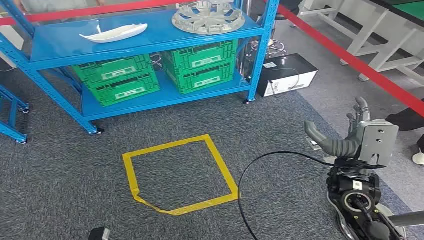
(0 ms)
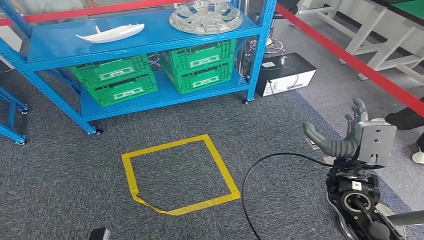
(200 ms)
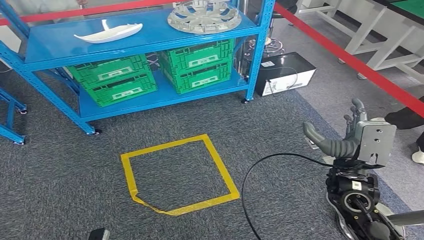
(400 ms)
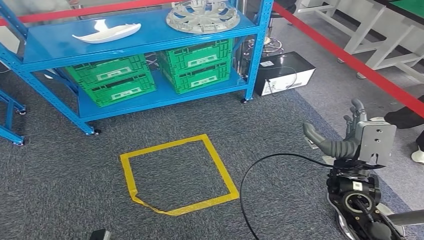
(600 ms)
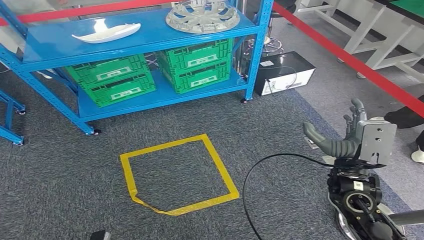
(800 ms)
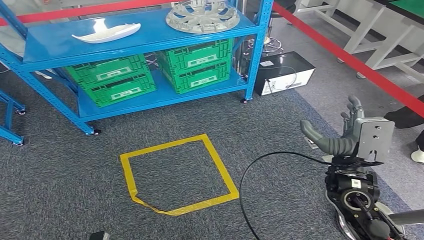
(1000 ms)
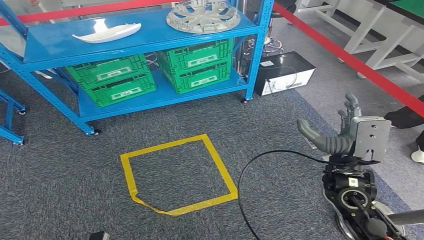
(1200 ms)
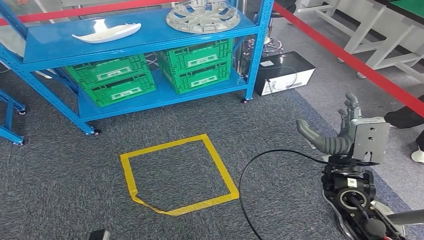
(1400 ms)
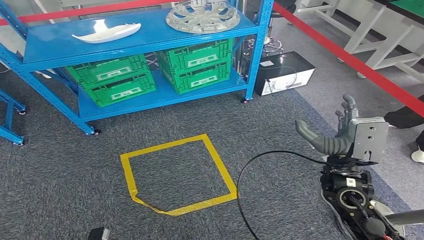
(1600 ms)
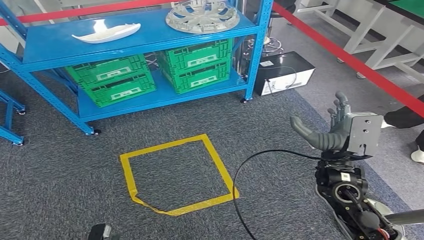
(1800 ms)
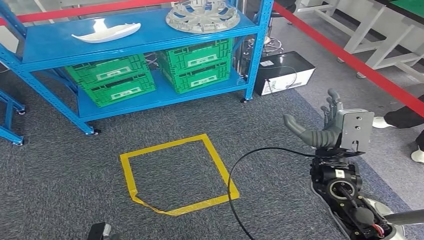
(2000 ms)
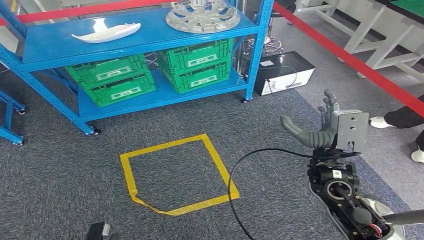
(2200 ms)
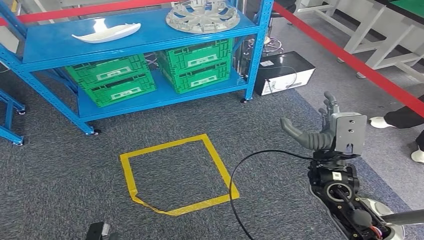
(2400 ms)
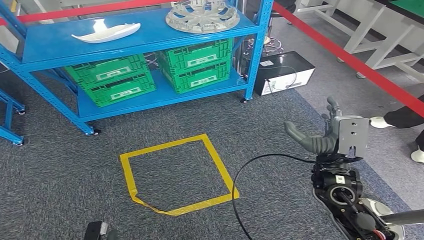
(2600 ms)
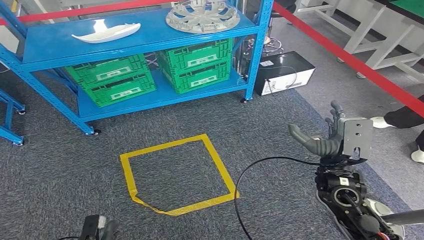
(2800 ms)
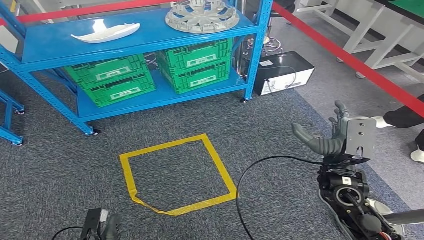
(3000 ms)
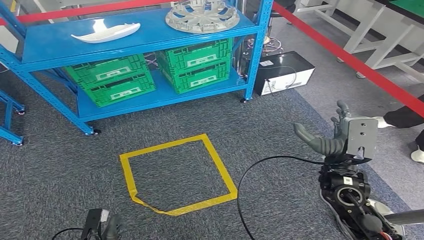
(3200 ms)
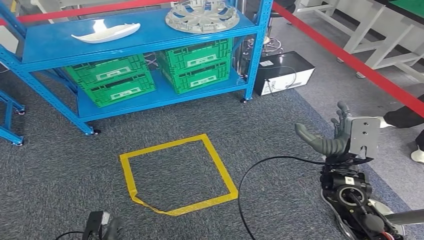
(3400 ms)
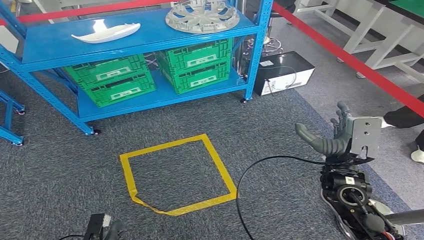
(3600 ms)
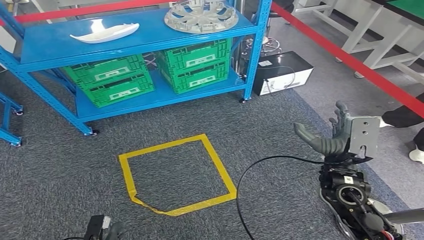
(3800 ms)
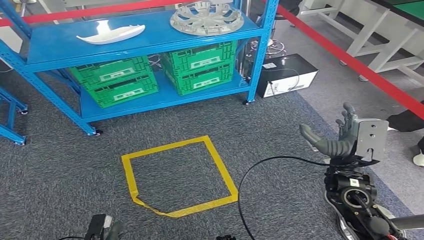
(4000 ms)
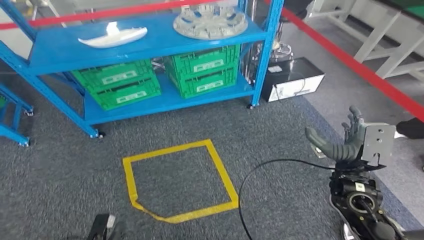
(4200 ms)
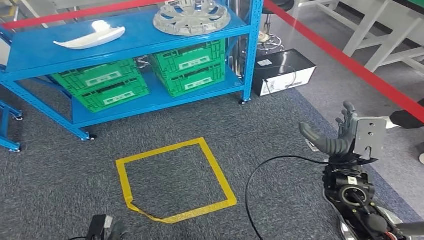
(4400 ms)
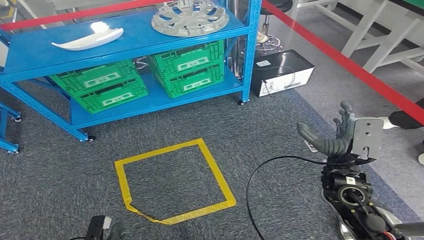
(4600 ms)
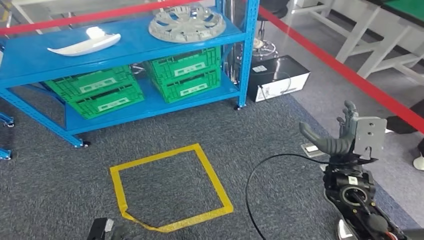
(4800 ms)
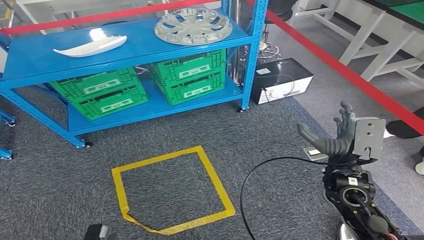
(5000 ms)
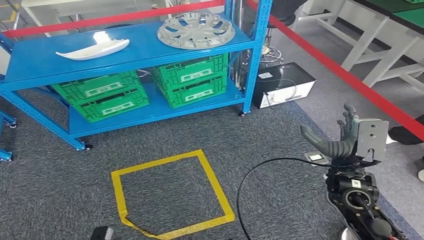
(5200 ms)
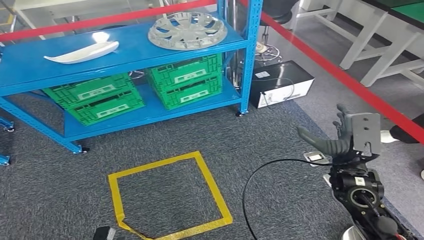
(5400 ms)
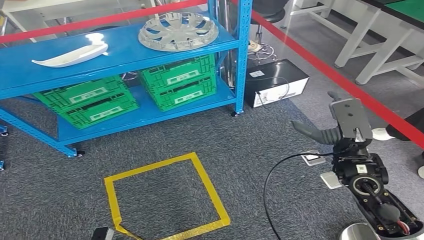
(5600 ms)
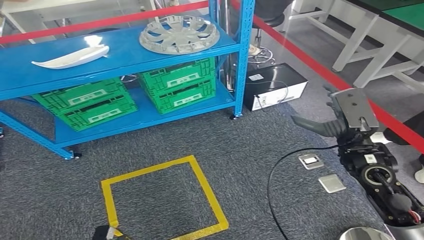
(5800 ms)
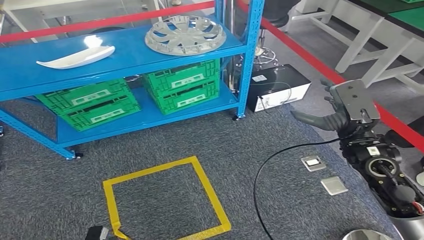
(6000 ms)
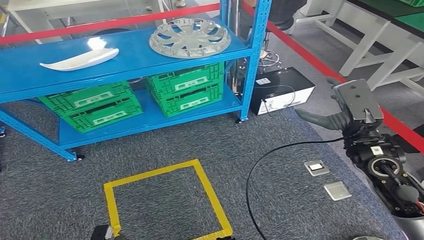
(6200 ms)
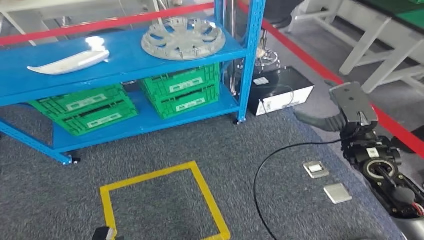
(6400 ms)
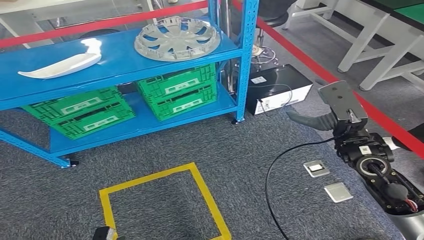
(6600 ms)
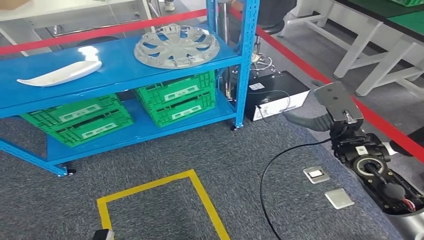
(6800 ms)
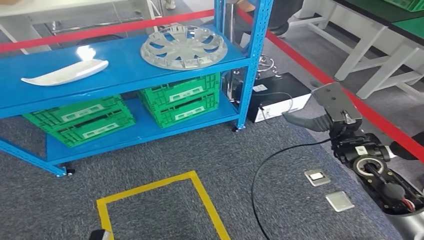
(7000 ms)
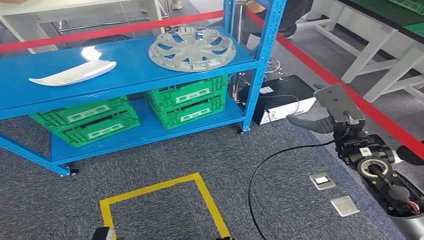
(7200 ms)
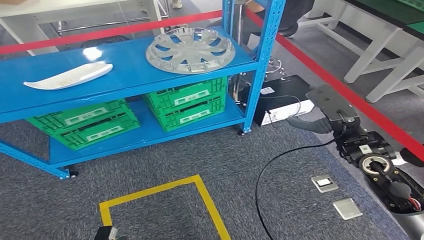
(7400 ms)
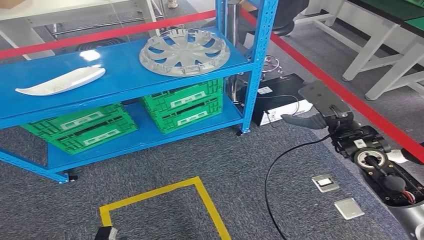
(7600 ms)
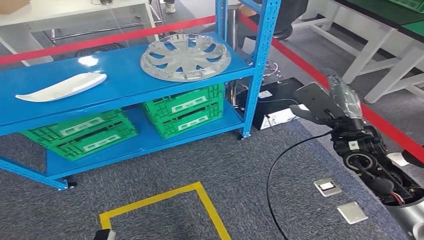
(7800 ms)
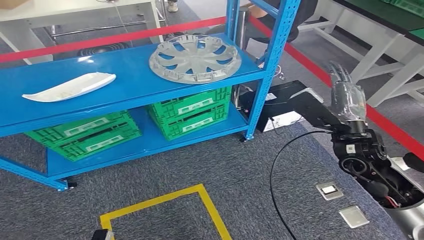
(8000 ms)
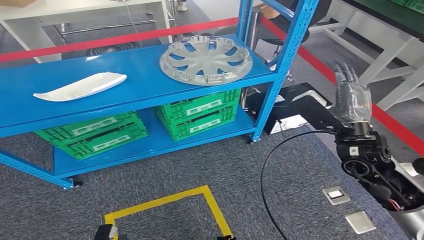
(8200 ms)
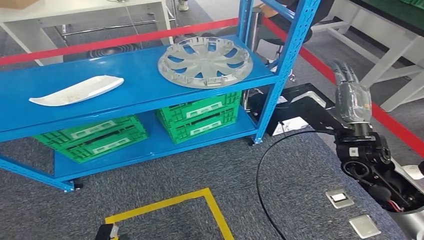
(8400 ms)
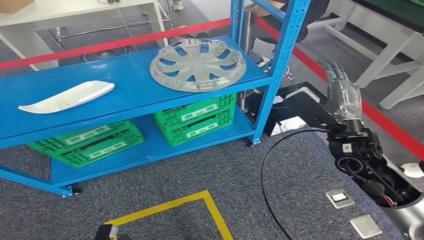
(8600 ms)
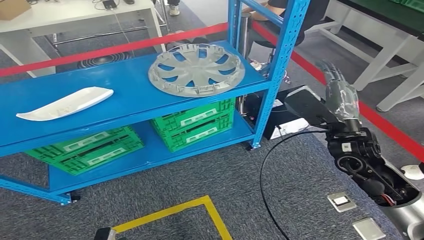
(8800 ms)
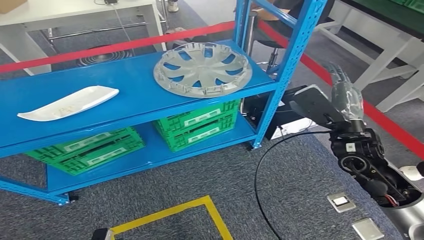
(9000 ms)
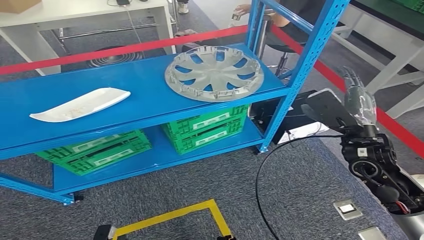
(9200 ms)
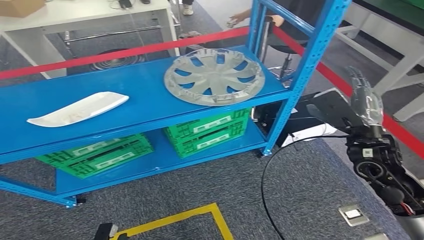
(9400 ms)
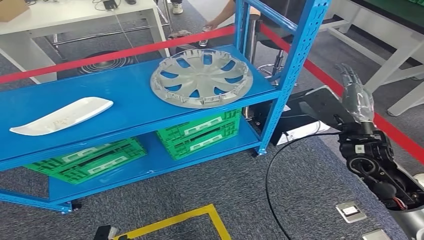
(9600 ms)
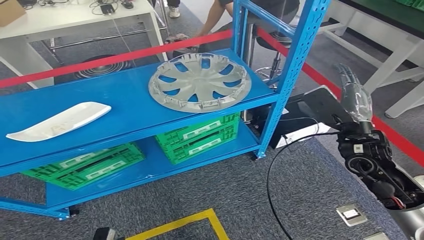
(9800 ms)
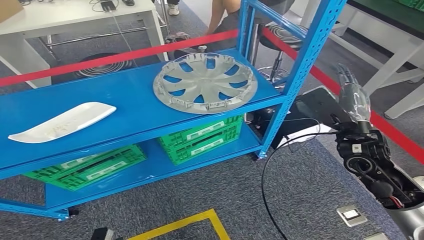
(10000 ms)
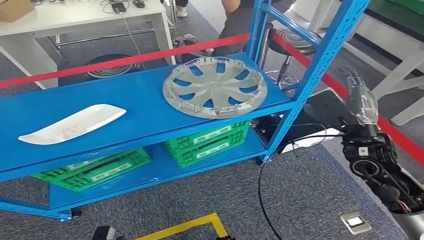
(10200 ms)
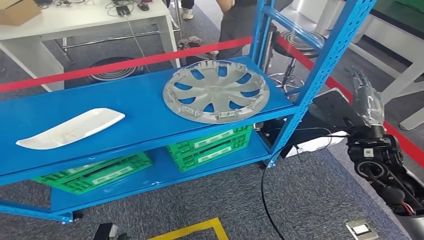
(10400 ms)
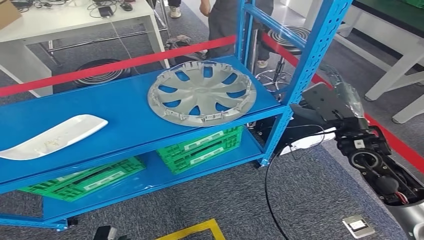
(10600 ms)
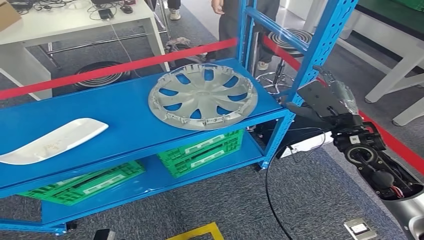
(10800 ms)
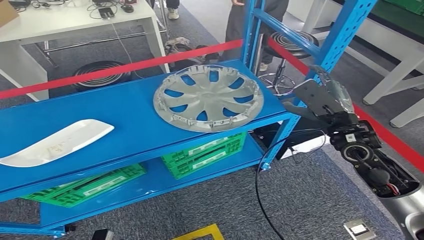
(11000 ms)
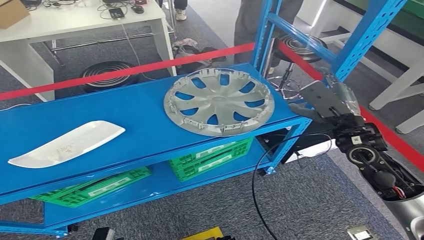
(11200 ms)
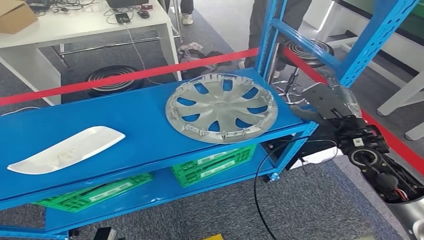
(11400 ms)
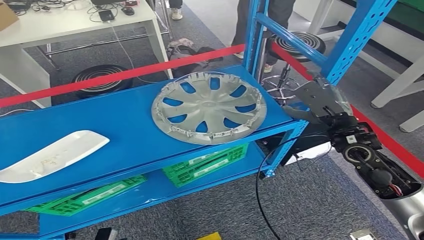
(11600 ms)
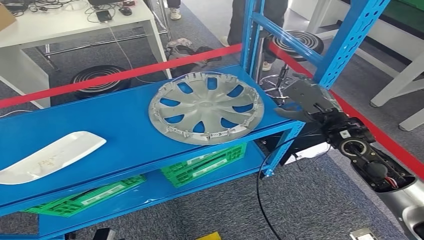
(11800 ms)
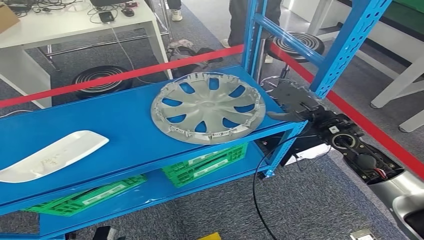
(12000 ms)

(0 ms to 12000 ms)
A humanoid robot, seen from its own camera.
1600 ms - 3000 ms: The left hand ends up some 5 cm from where it was.

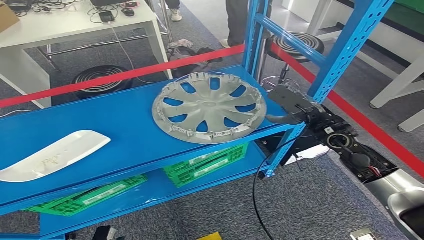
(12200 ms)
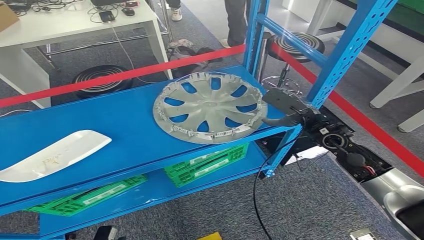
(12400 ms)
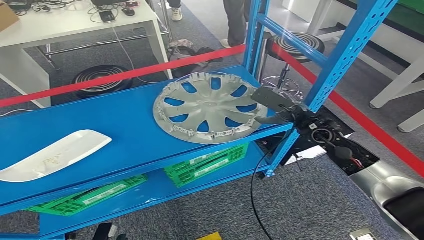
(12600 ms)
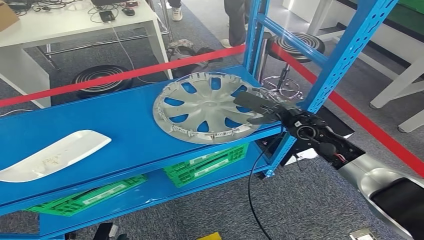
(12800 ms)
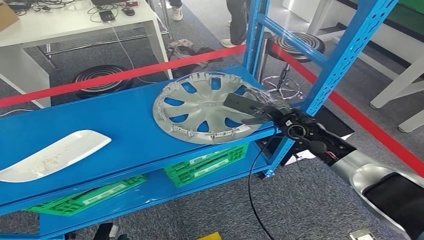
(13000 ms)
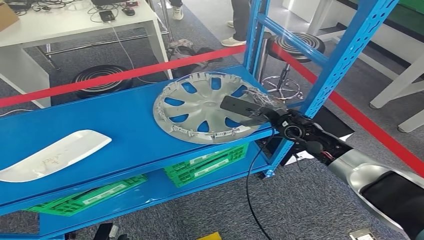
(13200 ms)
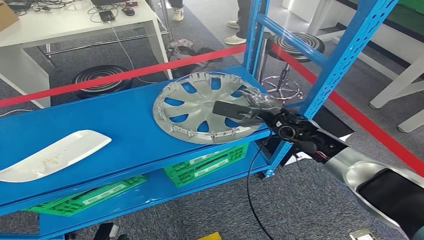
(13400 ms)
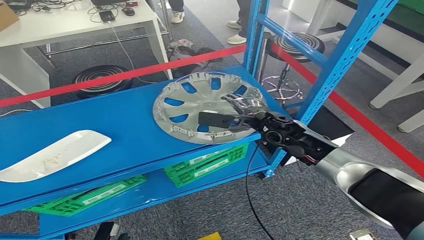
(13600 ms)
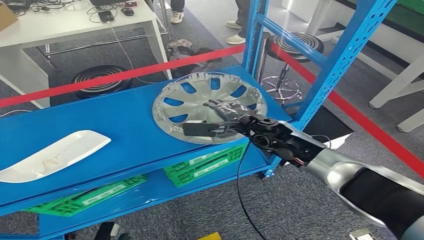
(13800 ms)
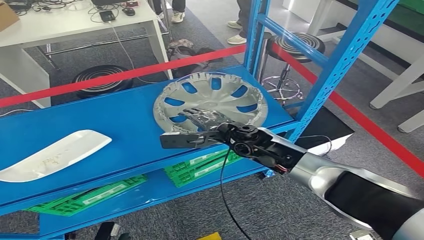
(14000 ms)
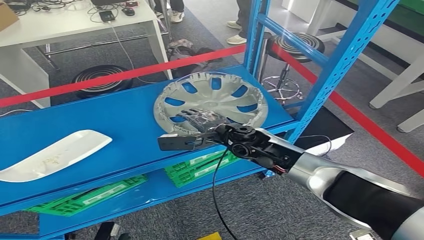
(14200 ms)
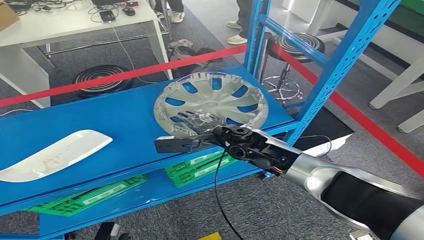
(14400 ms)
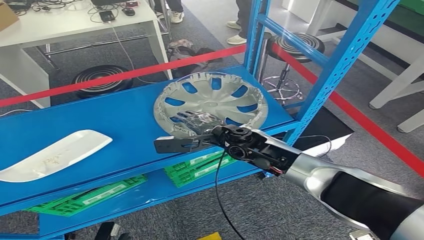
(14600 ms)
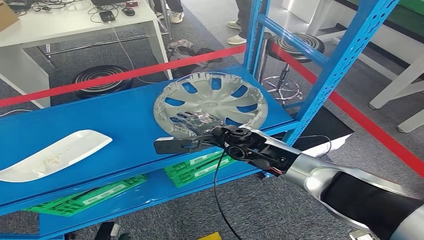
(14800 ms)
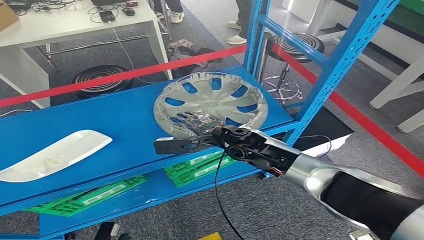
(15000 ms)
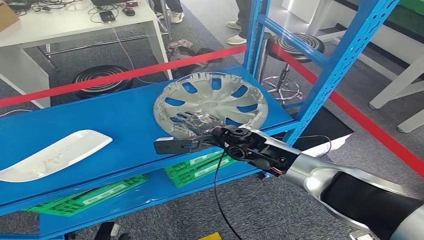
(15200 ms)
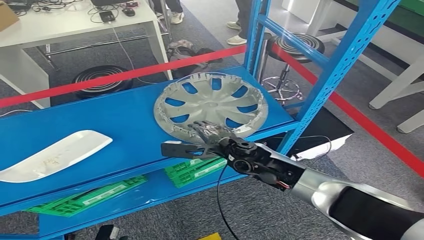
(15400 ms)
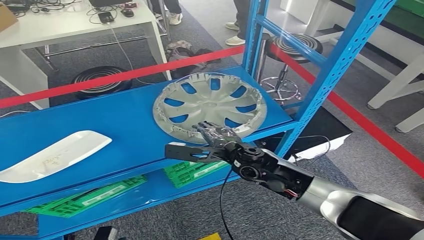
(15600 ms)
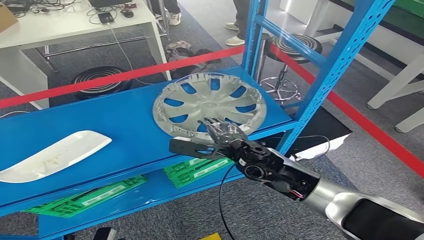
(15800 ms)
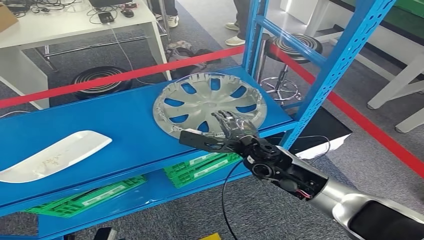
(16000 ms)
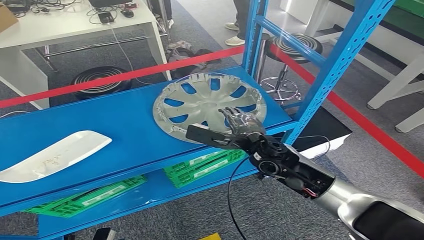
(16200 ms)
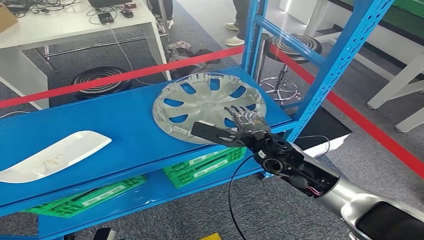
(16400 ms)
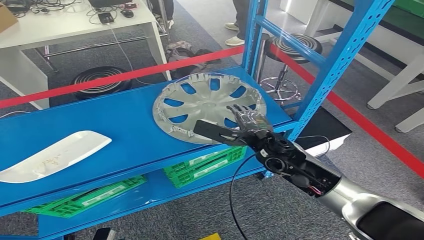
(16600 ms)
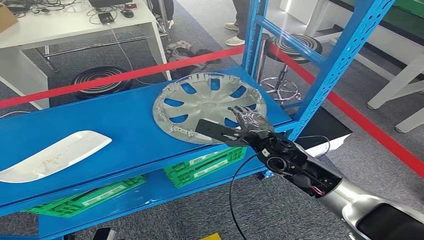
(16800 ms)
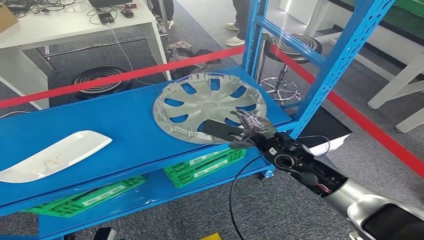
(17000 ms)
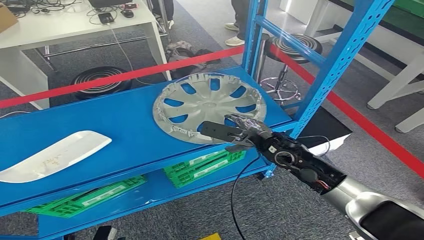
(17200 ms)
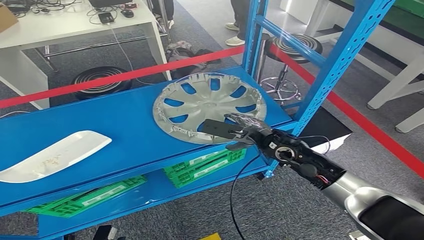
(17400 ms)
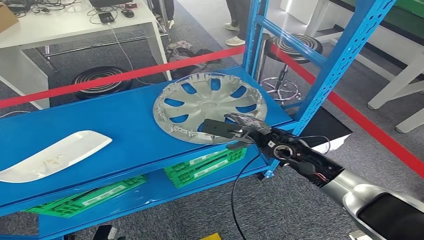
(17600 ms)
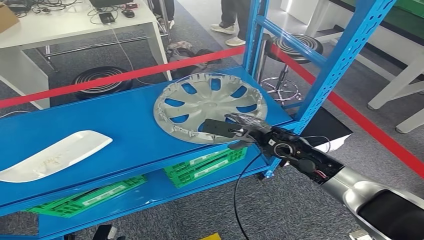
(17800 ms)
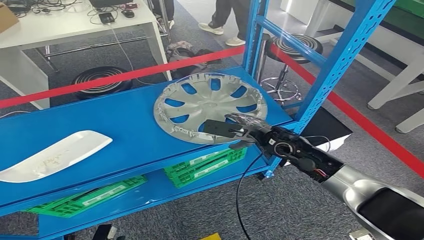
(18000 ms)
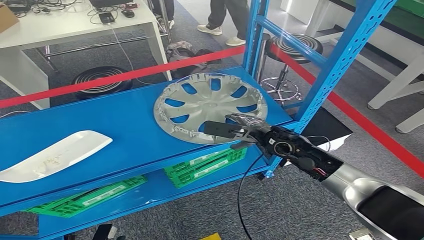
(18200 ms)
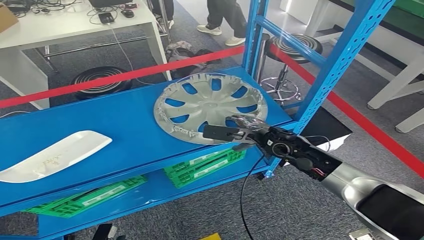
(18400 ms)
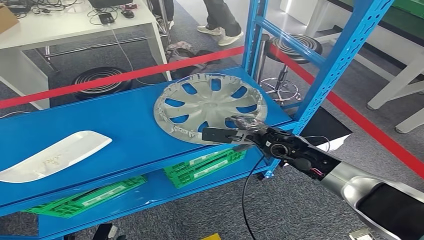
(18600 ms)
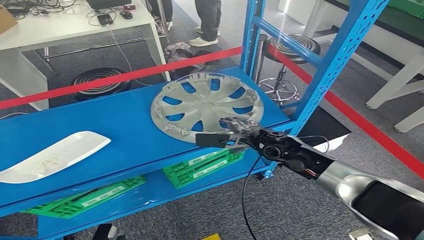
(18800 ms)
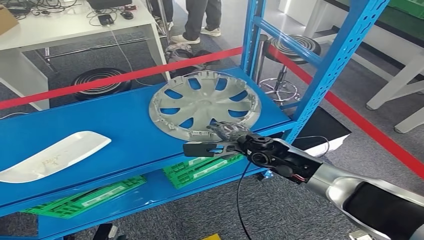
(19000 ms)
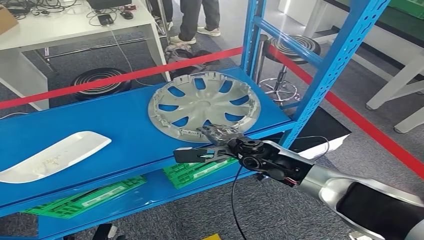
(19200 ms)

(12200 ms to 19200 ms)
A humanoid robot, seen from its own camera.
12200 ms - 13600 ms: The right hand travels to the left and forward by some 10 cm.
13600 ms - 15000 ms: The right hand goes some 10 cm to the left.
15000 ms - 16400 ms: The right hand moves backward and to the right, approximately 5 cm.
16400 ms - 17800 ms: The right hand moves about 5 cm.
